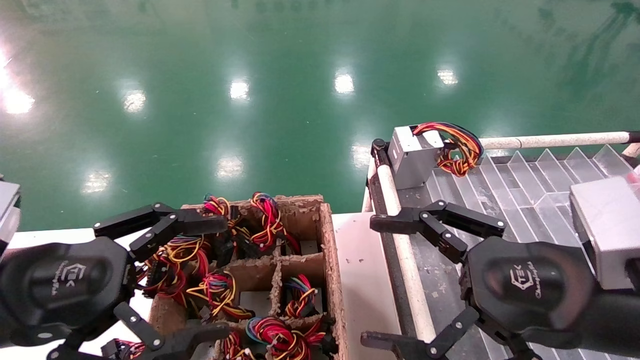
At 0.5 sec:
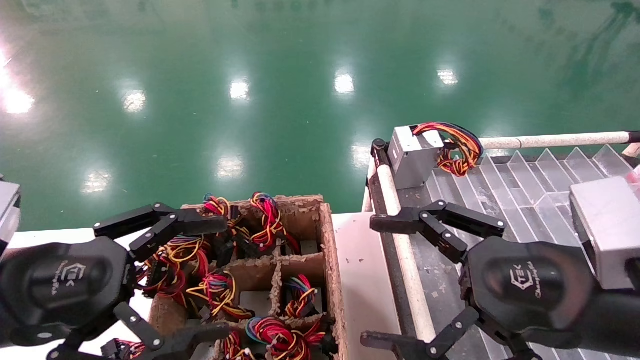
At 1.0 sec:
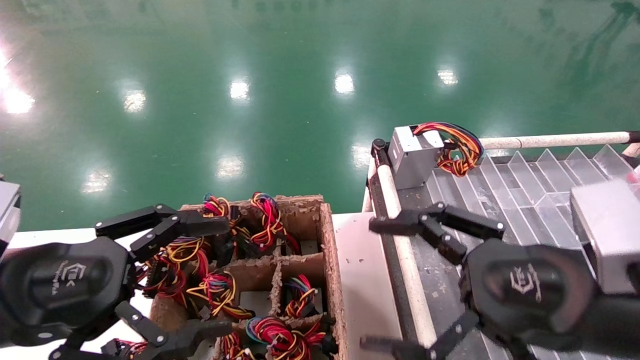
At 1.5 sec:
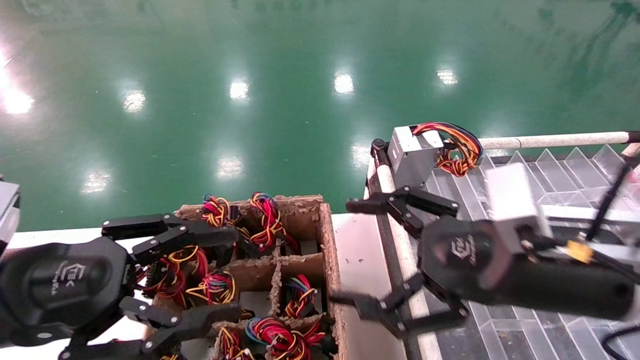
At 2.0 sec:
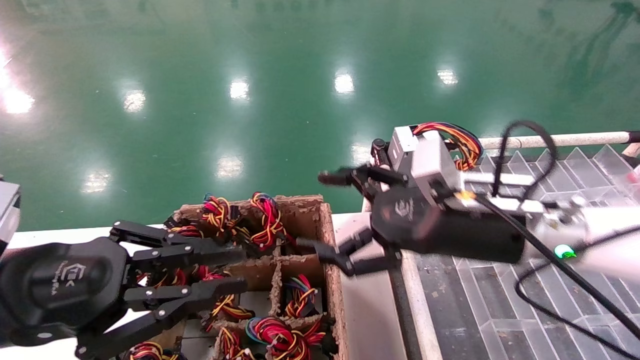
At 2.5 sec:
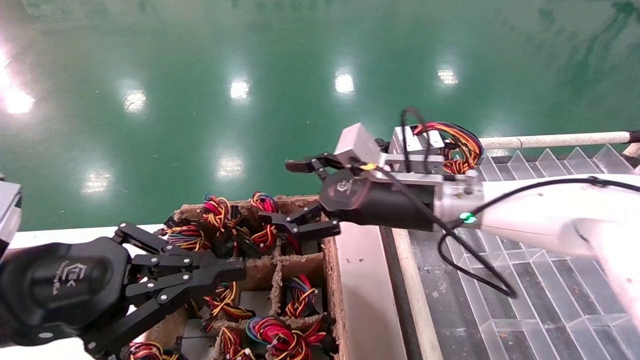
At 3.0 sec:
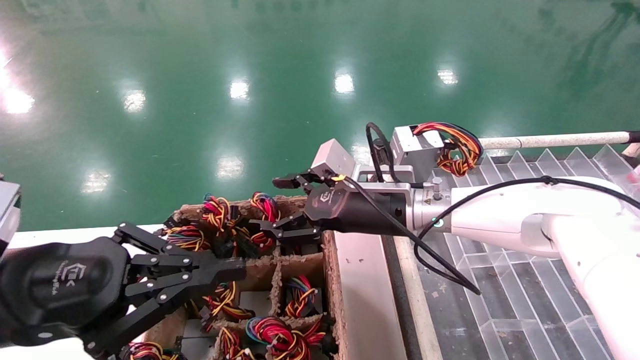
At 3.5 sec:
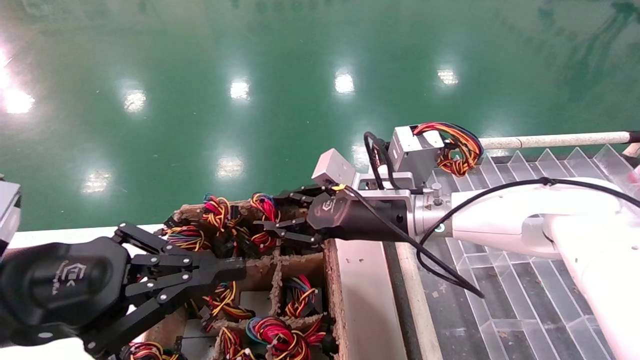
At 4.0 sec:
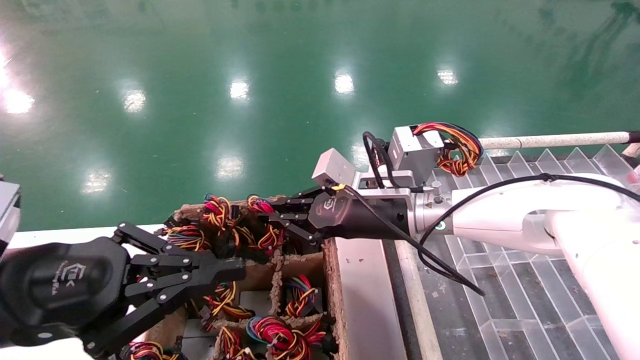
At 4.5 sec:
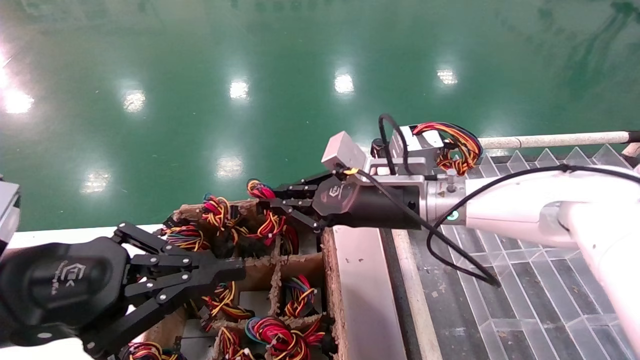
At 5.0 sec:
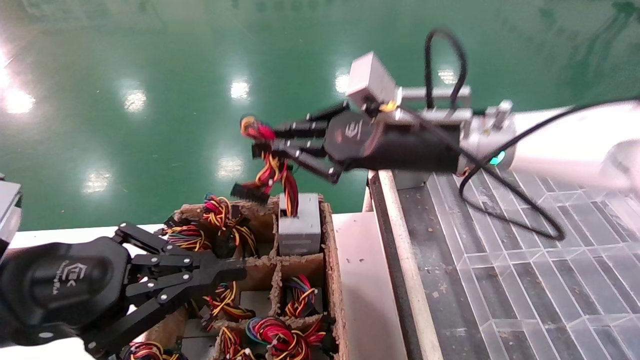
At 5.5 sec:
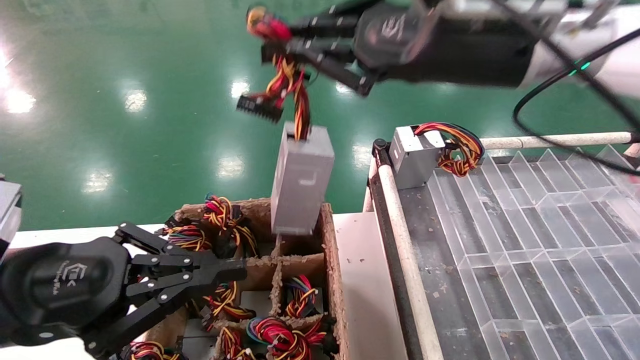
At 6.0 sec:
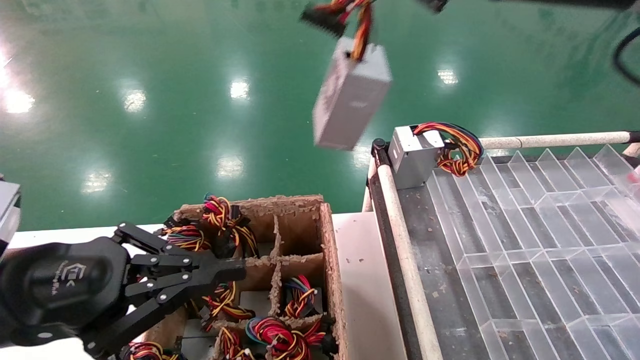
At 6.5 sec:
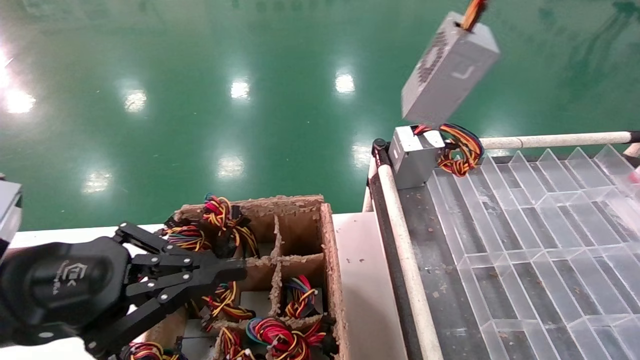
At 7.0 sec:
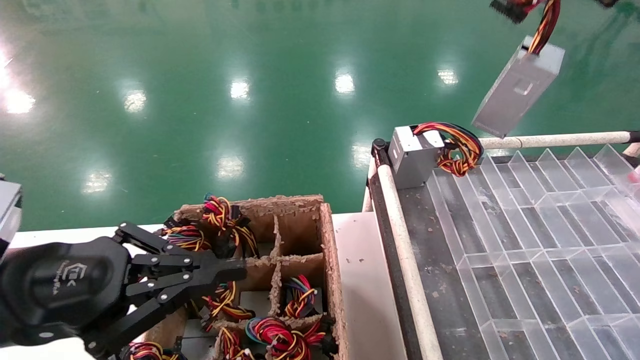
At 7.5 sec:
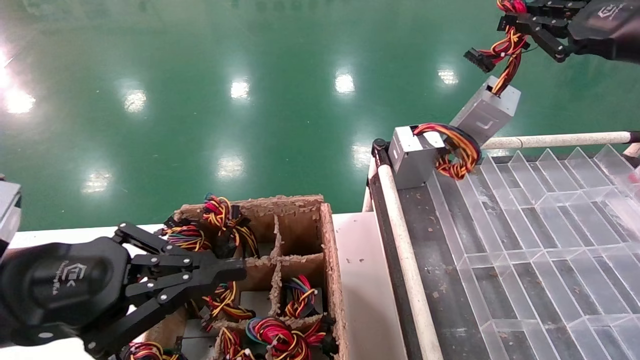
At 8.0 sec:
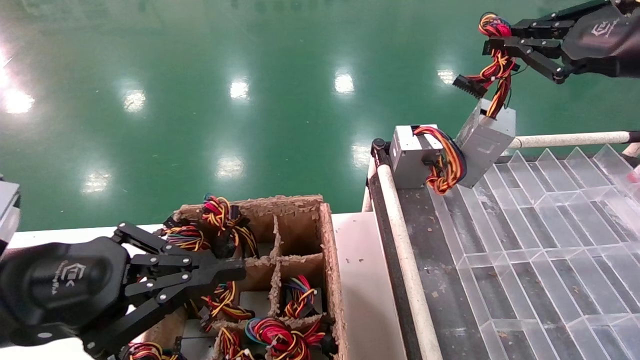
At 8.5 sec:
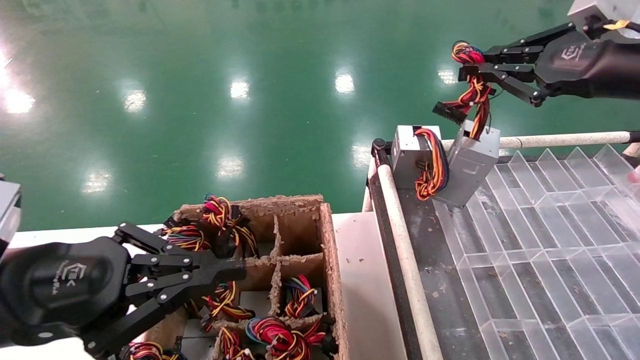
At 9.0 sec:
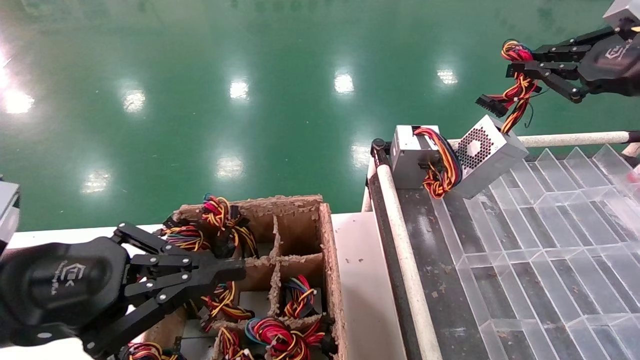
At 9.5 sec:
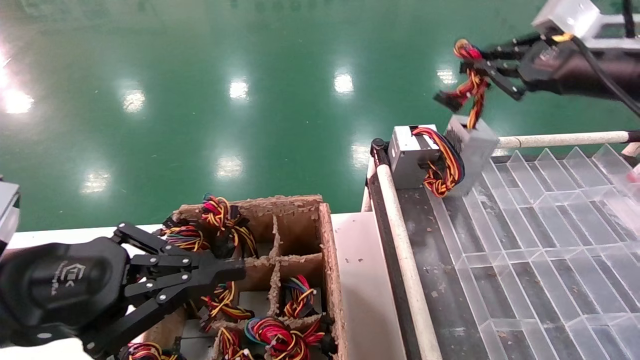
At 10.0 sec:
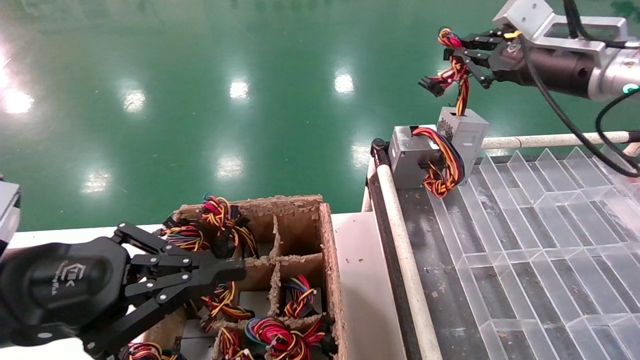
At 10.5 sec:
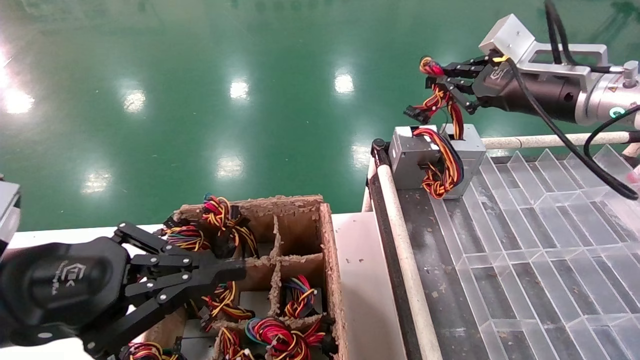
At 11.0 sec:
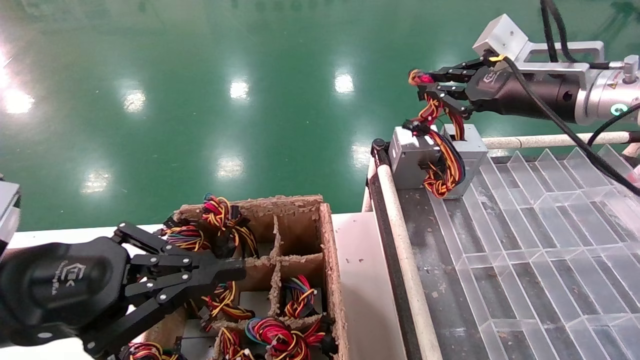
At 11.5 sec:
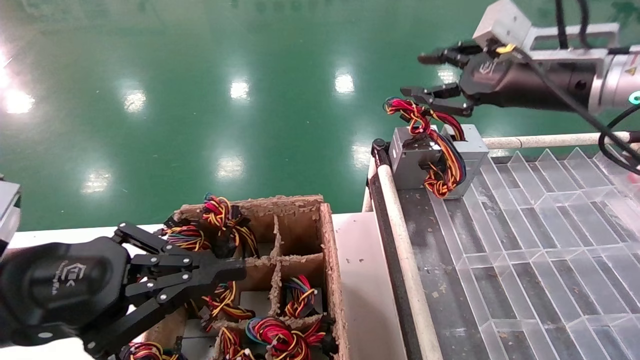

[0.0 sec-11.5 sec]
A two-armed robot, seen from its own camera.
Step, 1.5 sec to 4.0 sec: Grab the main unit power supply from the containment box.
Step, 4.5 sec to 11.0 sec: Place the main unit power supply in the designated area.
0.0 sec to 2.0 sec: The left gripper closes. Meanwhile the right gripper is displaced forward and to the left by roughly 15 cm.
2.0 sec to 4.0 sec: The right gripper moves forward and to the left, about 10 cm, and closes its fingers.
4.0 sec to 6.0 sec: The right gripper travels upward, backward and to the right by about 30 cm.
6.0 sec to 7.5 sec: The right gripper shifts some 15 cm to the right.
7.5 sec to 9.5 sec: The right gripper shifts by approximately 5 cm.
9.5 sec to 11.5 sec: The right gripper is displaced to the left by approximately 5 cm.

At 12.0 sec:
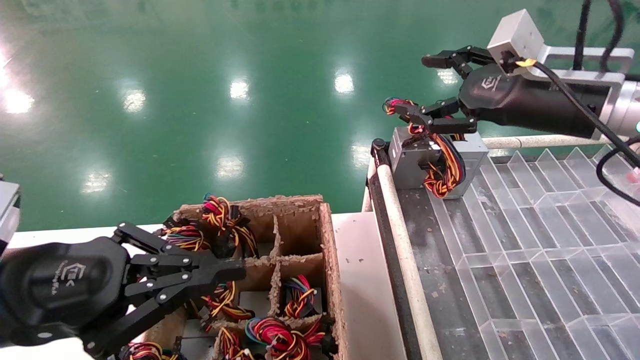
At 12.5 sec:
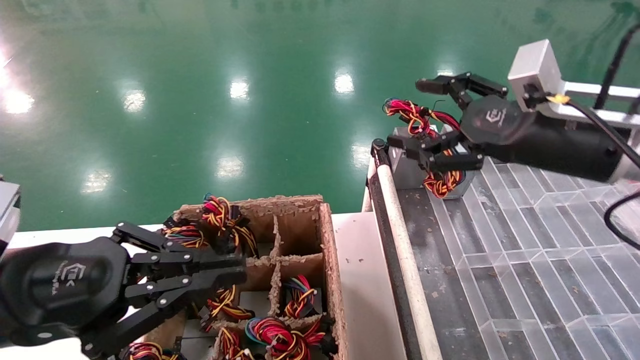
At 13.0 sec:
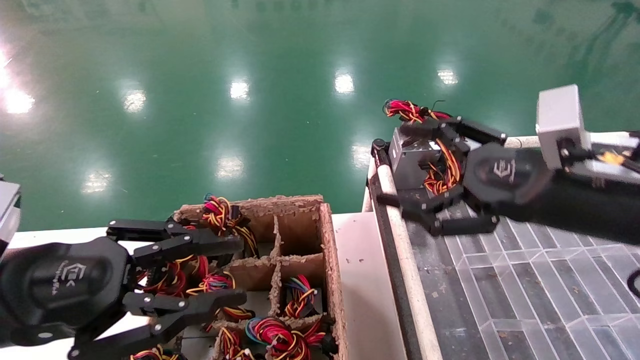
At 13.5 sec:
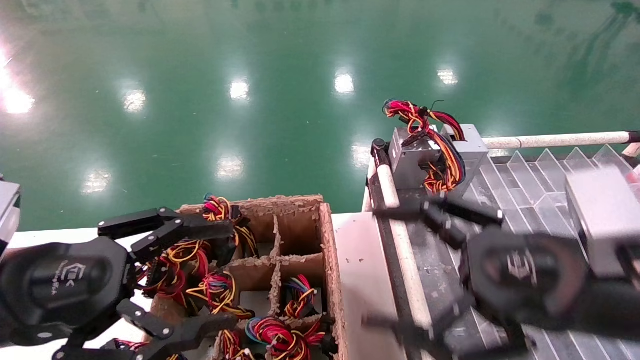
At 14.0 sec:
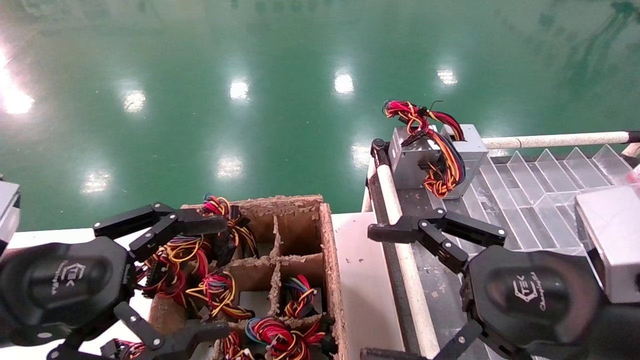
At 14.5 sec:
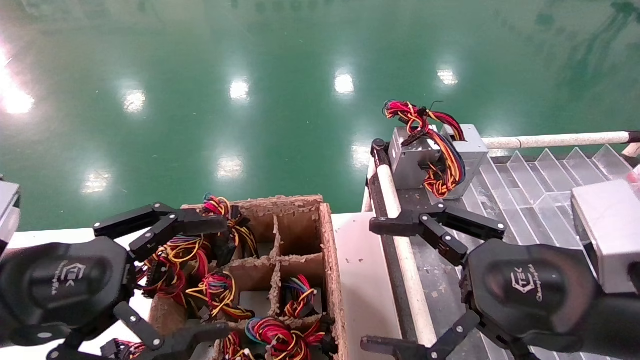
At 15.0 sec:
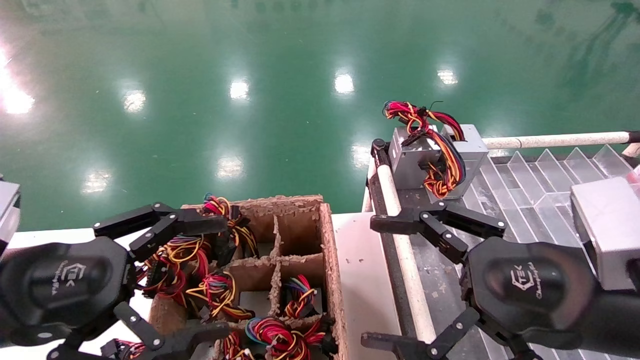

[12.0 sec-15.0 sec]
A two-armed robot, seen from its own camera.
12.0 sec to 13.5 sec: The left gripper opens up. Meanwhile the right gripper heads backward and downward, covering approximately 20 cm.
13.5 sec to 15.0 sec: The grippers stay close to where they were, moving slightly.
